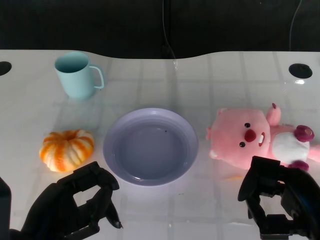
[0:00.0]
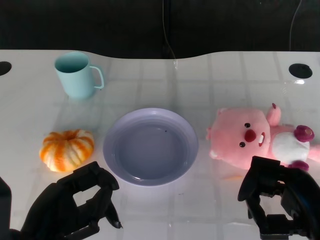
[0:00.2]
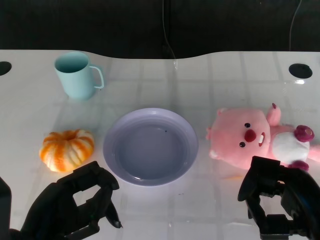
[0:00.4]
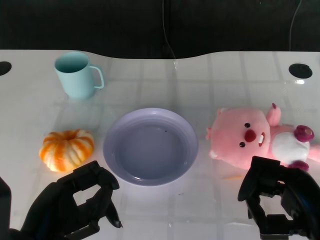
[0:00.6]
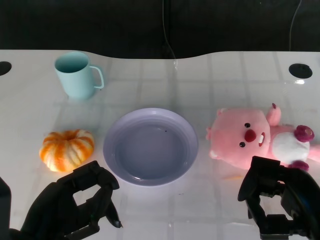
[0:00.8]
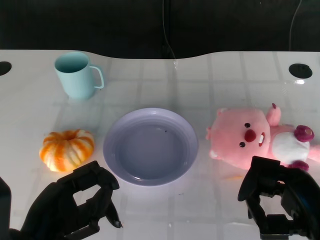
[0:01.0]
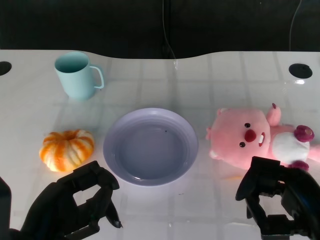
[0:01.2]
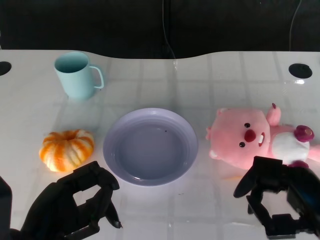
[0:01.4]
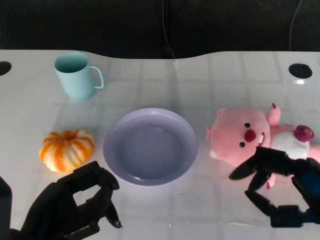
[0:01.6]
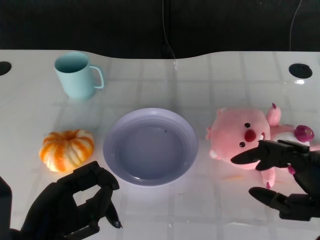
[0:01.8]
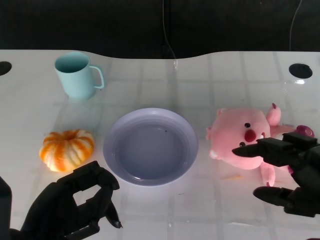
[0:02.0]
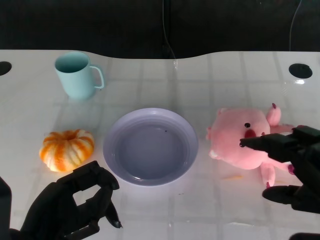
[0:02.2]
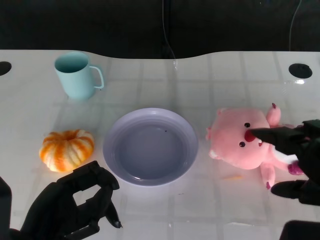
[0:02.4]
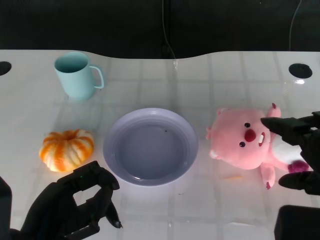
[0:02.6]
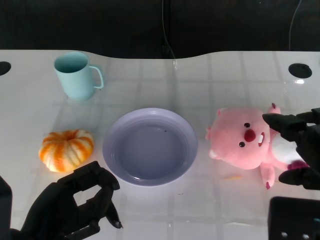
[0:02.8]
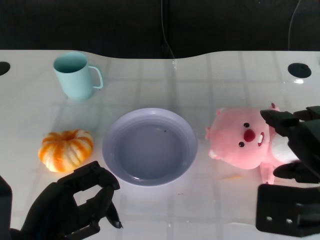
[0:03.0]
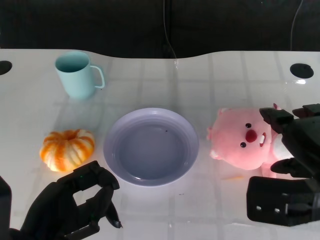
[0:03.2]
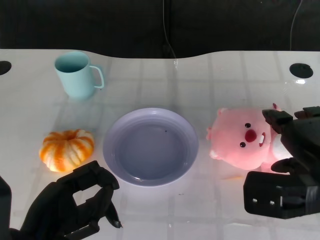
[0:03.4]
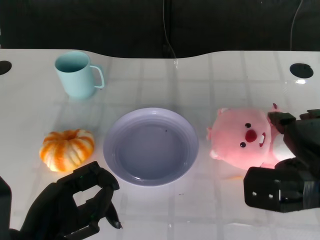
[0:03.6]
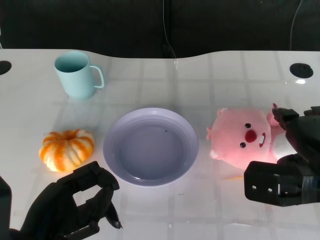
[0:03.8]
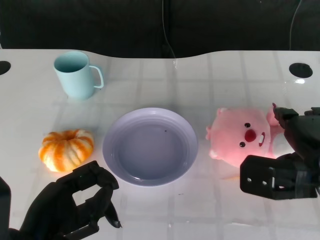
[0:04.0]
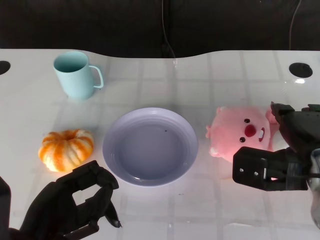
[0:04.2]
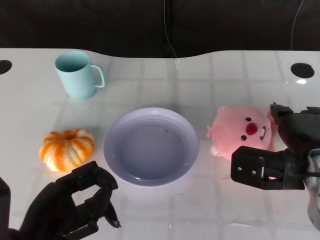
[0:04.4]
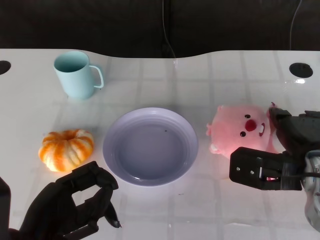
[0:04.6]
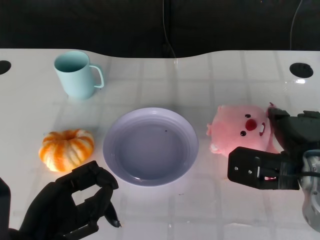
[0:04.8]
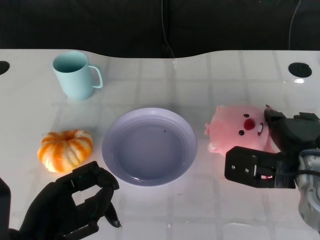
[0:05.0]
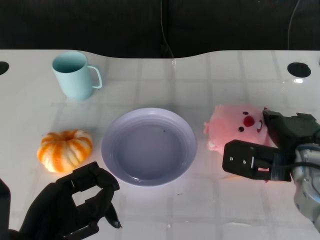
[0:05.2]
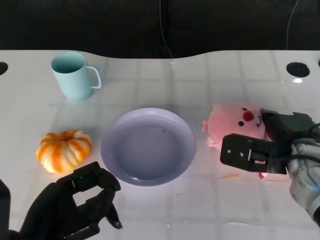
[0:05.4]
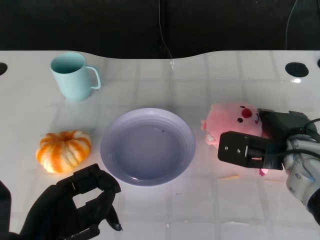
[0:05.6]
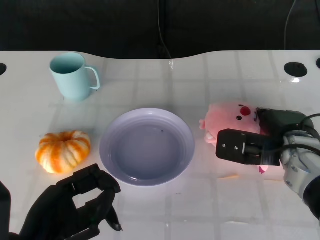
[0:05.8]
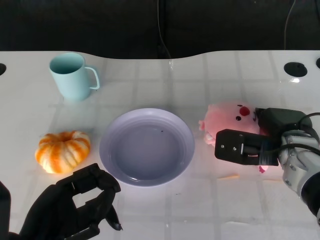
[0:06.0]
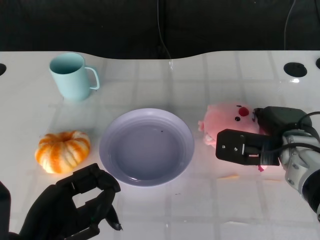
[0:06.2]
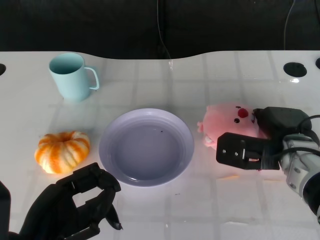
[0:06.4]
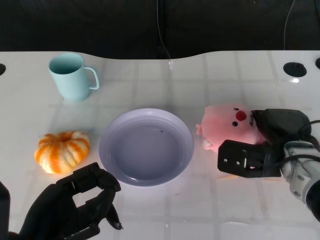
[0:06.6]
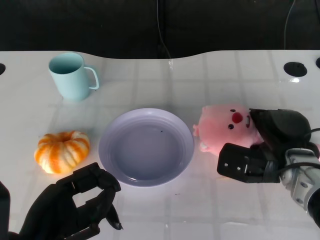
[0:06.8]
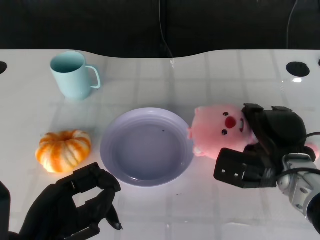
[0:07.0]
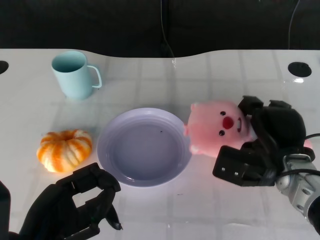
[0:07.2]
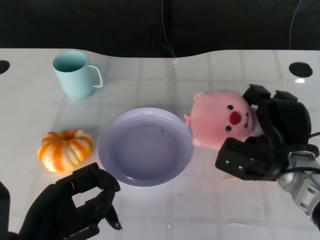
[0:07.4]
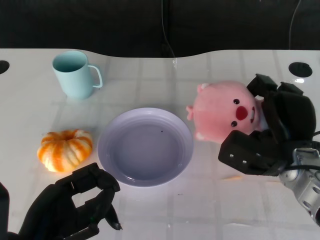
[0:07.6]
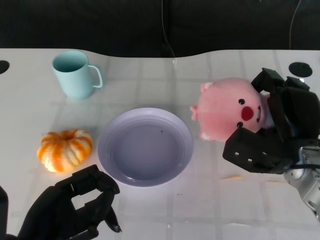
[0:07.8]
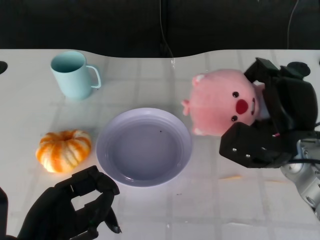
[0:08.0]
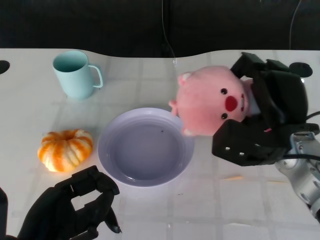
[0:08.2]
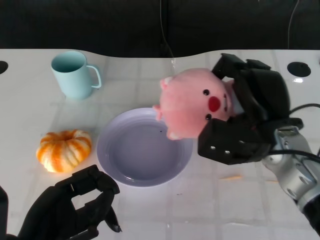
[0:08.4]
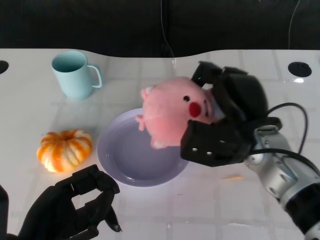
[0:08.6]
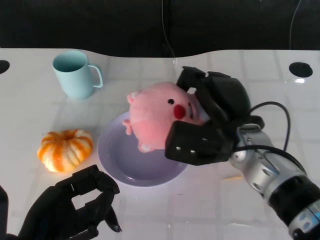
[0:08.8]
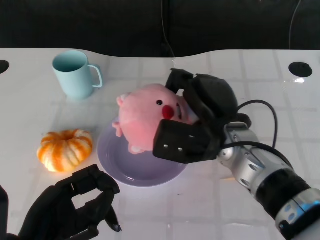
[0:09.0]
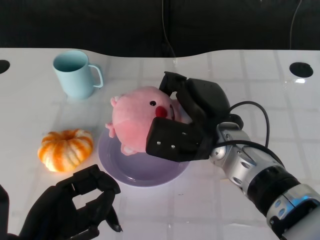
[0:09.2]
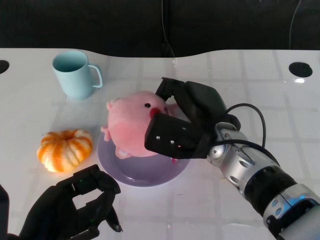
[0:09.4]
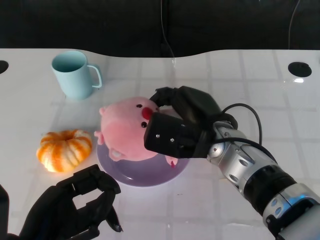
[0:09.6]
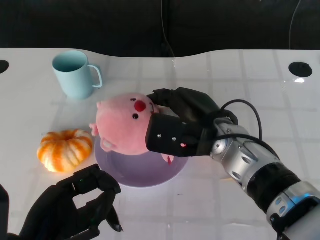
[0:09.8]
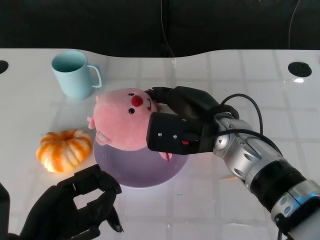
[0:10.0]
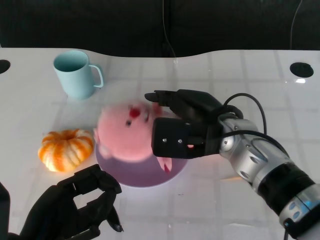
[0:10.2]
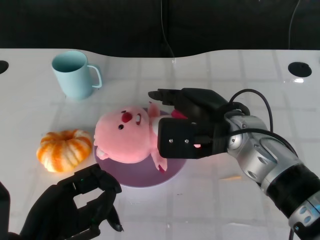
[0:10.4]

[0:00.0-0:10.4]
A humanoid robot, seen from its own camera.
Task of the whole recording: Pick up the doll on the other side of the plate and place it into the plate.
Step, 0:01.2 to 0:07.0: Grasp the pink doll with the right gripper.
0:01.4 to 0:03.0: The right hand moves upward, about 5 cm.
0:03.0 to 0:04.4: The right hand travels forward by approximately 5 cm.
0:04.4 to 0:06.0: The right hand goes approximately 5 cm forward.
0:07.4 to 0:09.0: The right hand heads to the left and upward, covering about 10 cm.

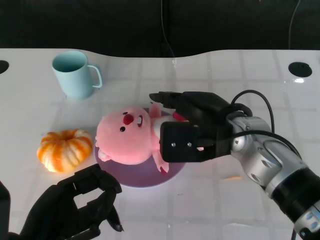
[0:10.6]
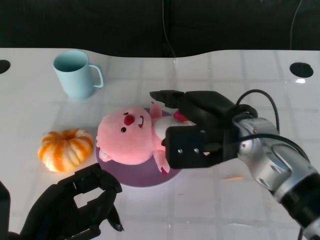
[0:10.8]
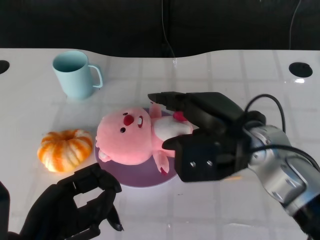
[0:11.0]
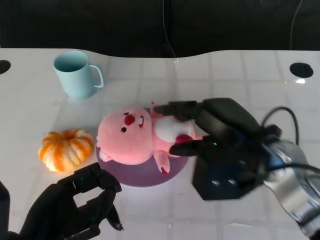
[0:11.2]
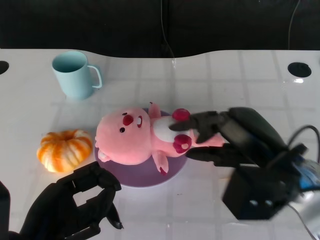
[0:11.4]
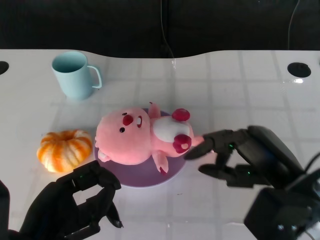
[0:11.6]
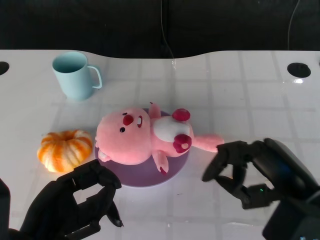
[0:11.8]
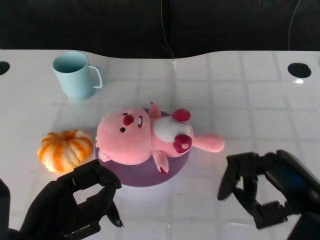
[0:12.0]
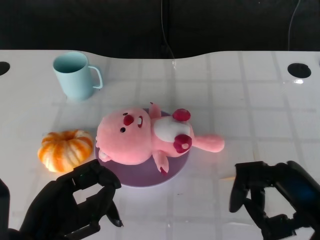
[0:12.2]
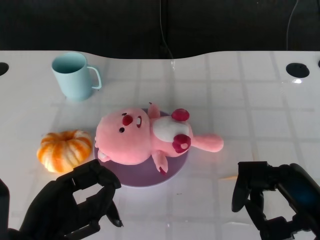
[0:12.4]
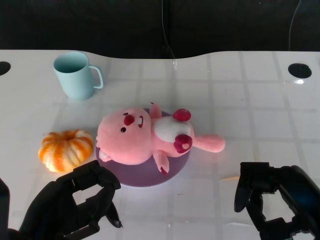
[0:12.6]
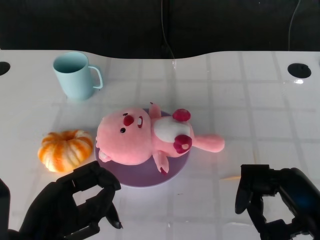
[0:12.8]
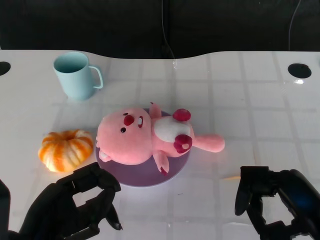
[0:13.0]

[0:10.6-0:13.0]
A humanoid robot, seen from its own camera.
Task of the whole recording: Pick up the doll on the other side of the plate and place it into the plate.
0:10.6 to 0:11.8: The right hand is displaced backward and to the right by some 15 cm.
0:11.8 to 0:13.0: There are only small adjustments of the hands.

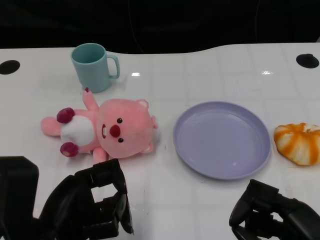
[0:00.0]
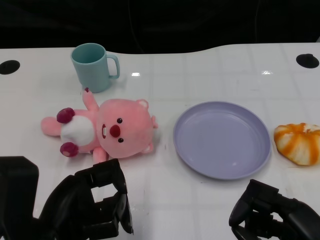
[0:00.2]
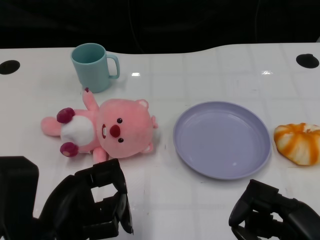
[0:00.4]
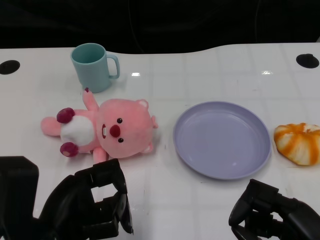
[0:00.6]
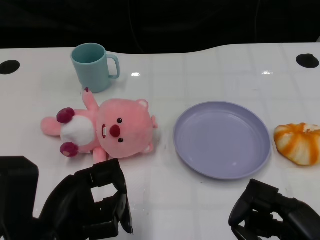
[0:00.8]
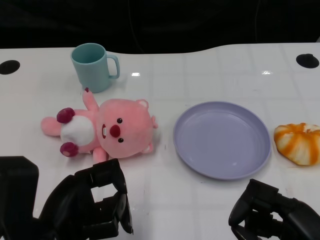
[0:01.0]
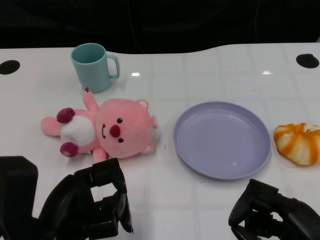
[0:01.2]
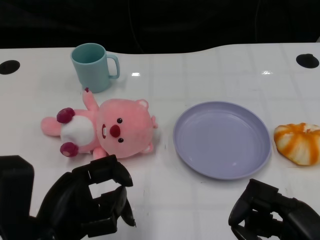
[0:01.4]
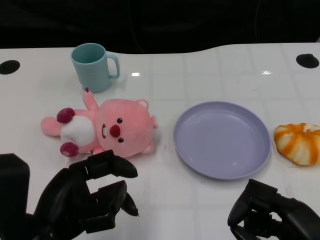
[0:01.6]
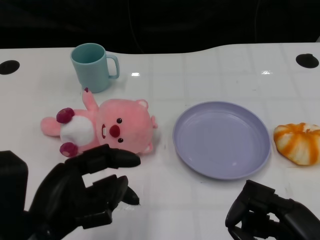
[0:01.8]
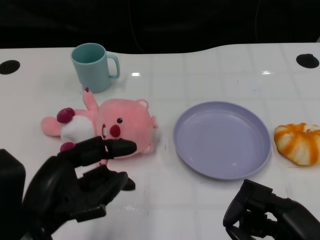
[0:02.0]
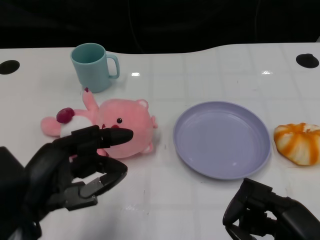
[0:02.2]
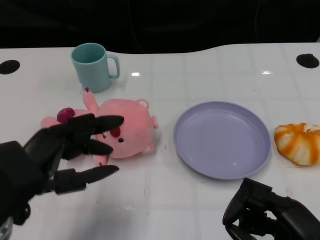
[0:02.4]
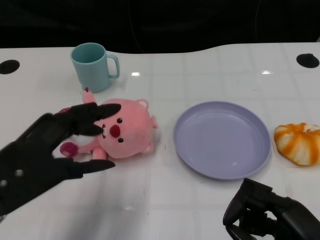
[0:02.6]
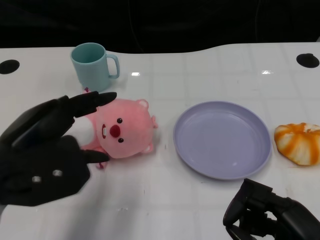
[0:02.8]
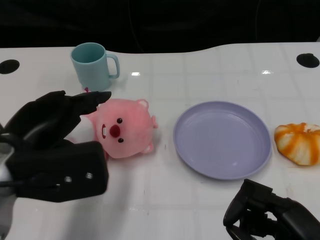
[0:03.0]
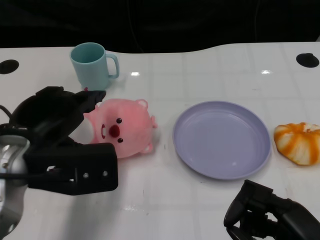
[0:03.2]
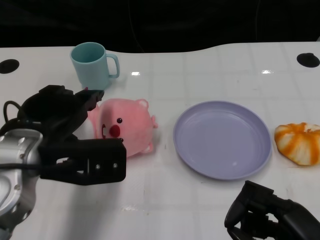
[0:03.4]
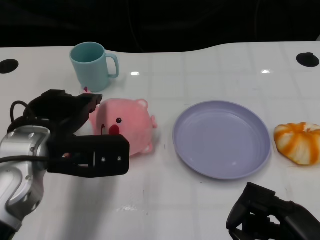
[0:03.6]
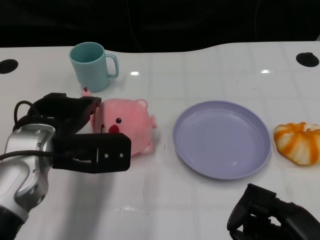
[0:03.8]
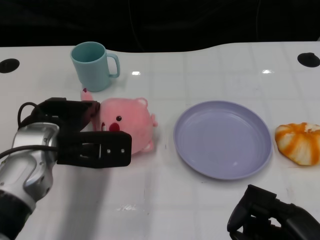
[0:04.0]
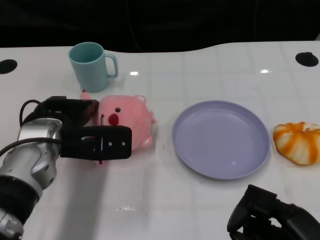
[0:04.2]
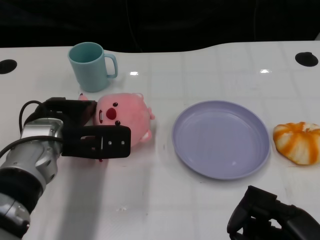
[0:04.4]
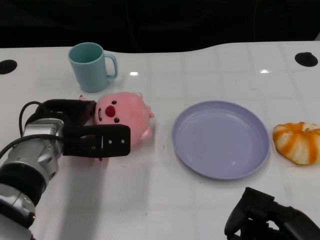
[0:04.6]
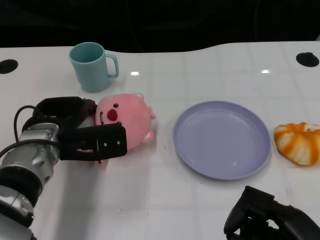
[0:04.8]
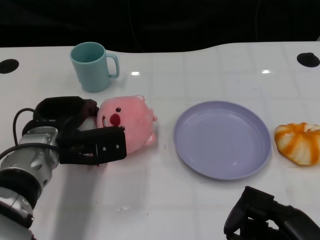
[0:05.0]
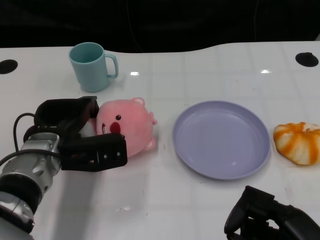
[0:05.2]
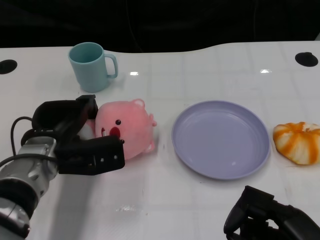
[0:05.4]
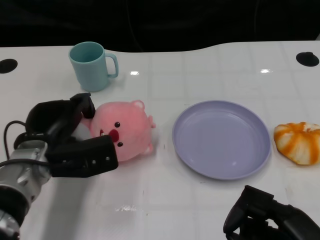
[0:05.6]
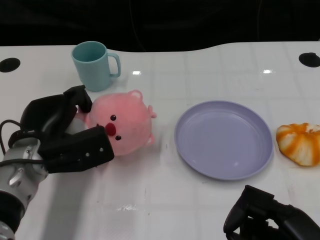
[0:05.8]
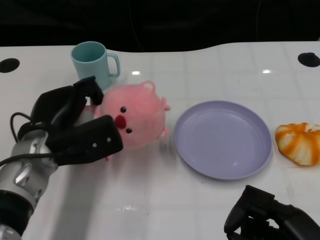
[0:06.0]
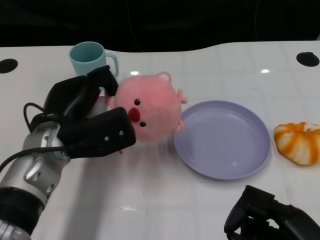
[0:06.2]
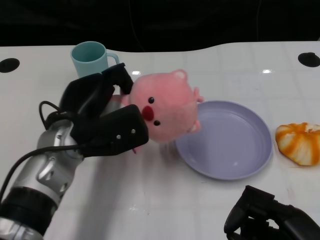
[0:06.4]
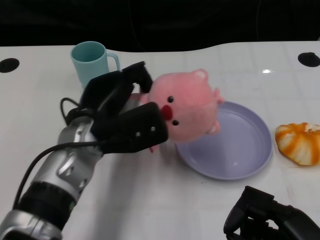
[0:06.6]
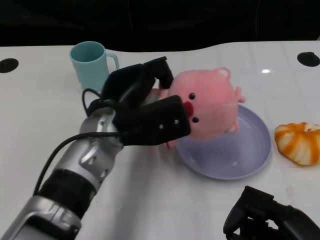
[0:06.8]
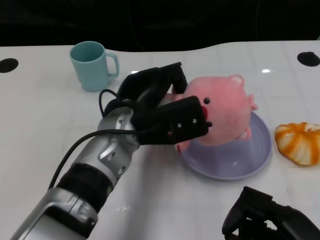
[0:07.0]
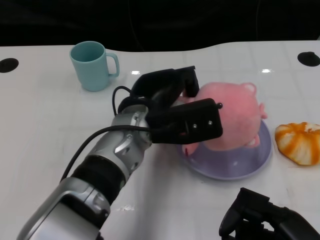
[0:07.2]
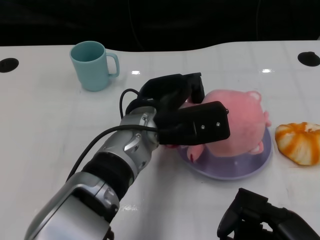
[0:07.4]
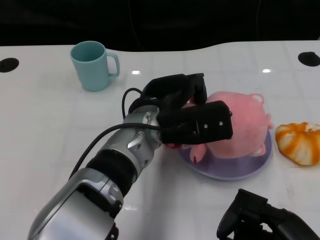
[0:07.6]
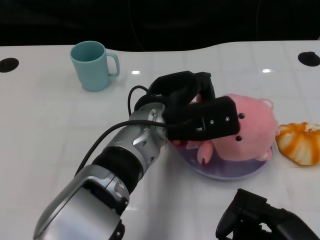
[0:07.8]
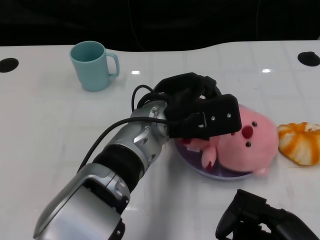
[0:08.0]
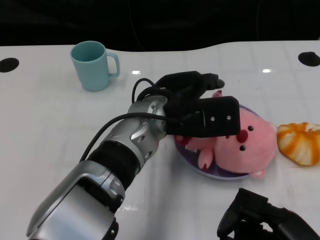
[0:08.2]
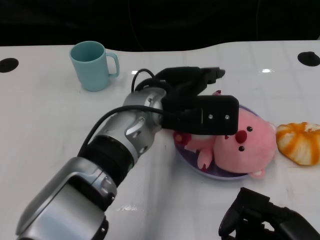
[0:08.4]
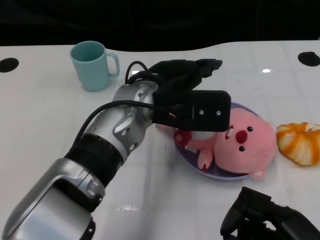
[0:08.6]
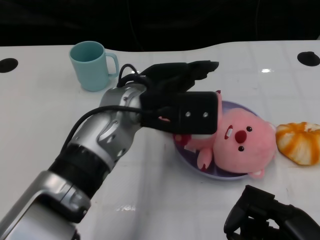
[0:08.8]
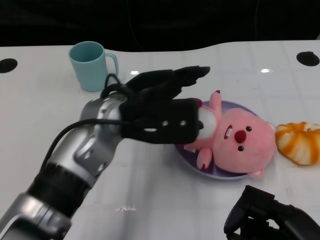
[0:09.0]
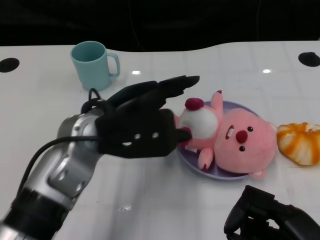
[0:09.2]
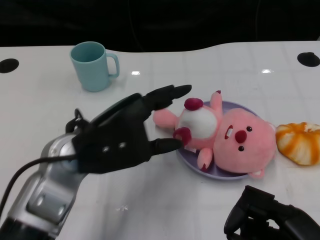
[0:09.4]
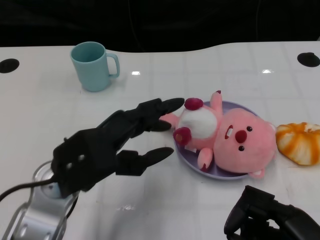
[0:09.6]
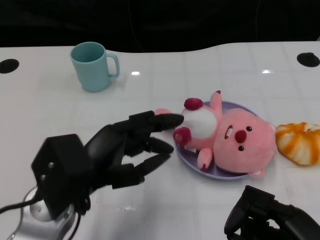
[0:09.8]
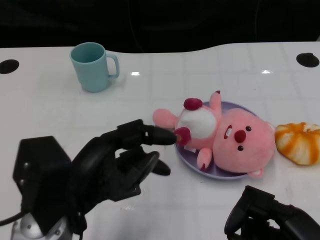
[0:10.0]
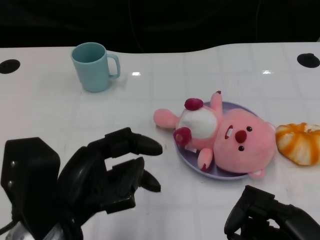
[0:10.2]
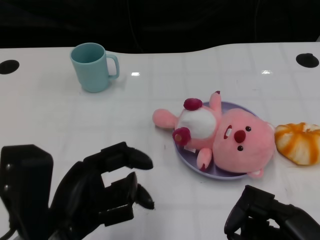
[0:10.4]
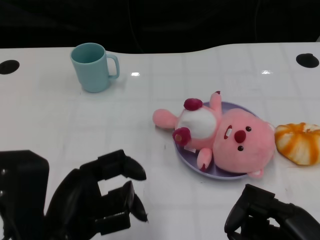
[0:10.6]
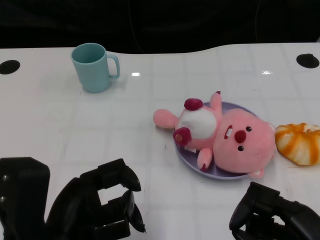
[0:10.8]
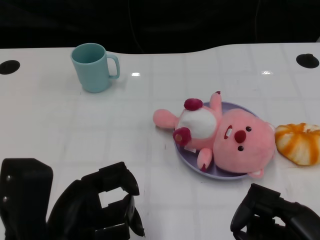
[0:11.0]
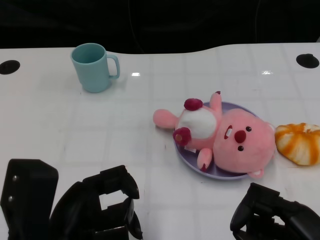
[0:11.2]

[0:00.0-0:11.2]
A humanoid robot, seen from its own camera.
Task of the whole recording: Pick up the doll on one side of the plate and place it into the plate.
Step, 0:01.4 to 0:05.8: Grasp the pink doll with the left gripper.
Step, 0:06.0 to 0:08.6: Place the pink doll into the plate with the left gripper.
0:01.6 to 0:03.2: The left hand heads forward and upward, covering some 10 cm.
0:03.2 to 0:04.8: The left hand moves forward and downward, some 10 cm.
0:06.4 to 0:08.0: The left hand moves to the right, about 15 cm.
0:08.0 to 0:09.6: The left hand is displaced to the left and backward by about 15 cm.
0:09.6 to 0:11.2: The left hand shifts about 10 cm backward.
